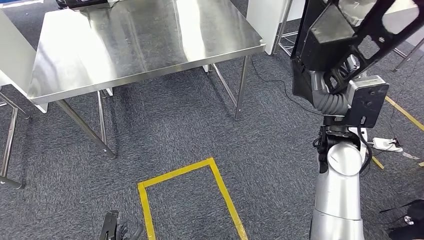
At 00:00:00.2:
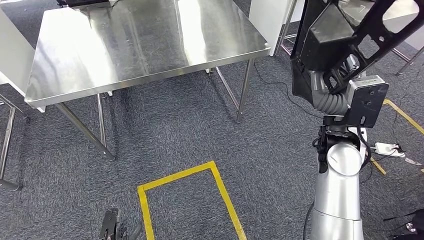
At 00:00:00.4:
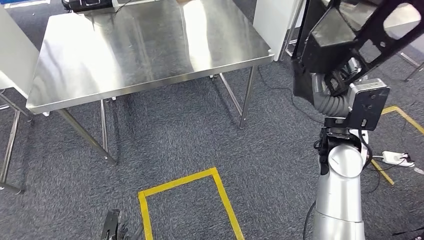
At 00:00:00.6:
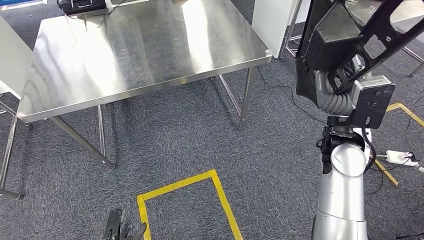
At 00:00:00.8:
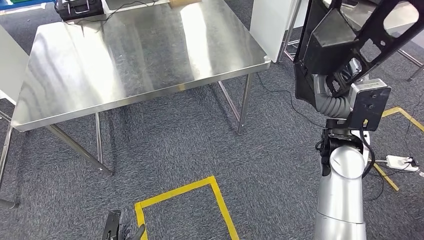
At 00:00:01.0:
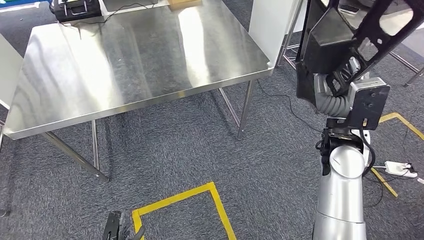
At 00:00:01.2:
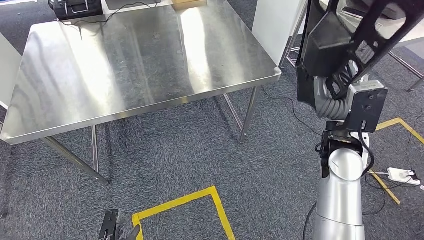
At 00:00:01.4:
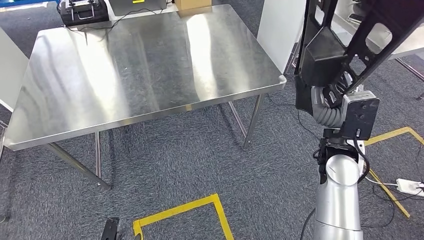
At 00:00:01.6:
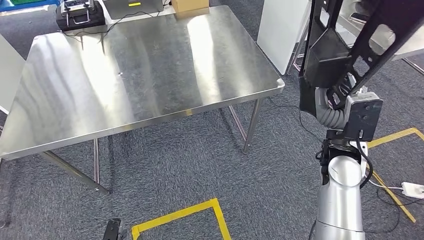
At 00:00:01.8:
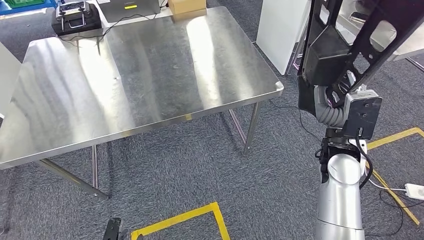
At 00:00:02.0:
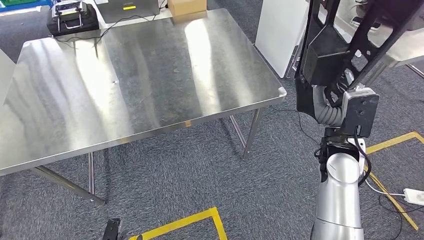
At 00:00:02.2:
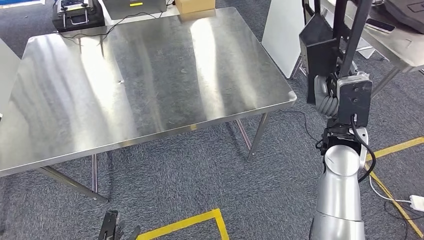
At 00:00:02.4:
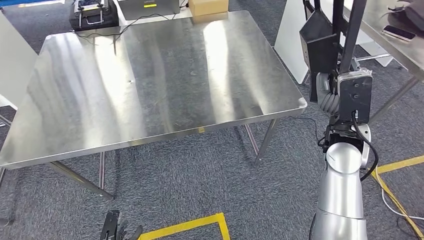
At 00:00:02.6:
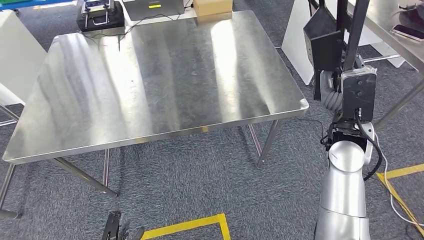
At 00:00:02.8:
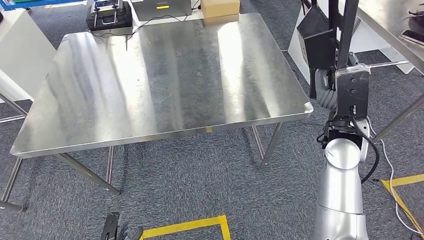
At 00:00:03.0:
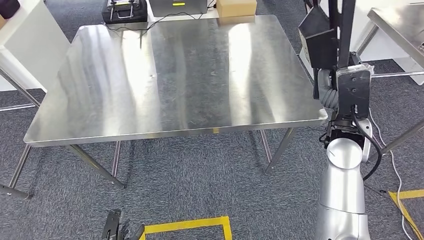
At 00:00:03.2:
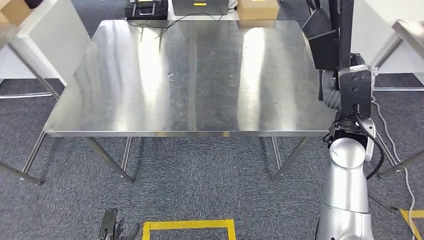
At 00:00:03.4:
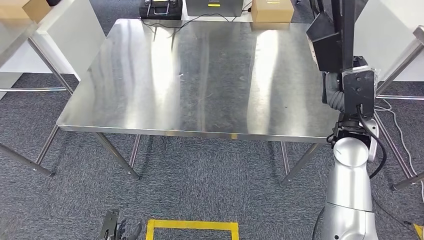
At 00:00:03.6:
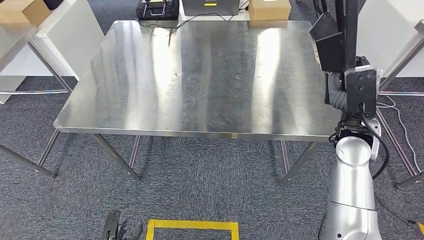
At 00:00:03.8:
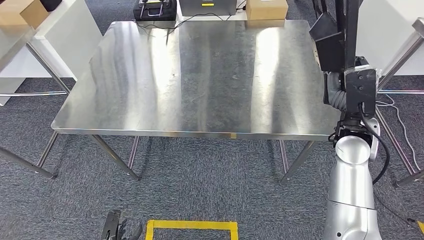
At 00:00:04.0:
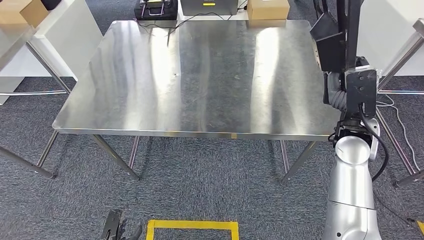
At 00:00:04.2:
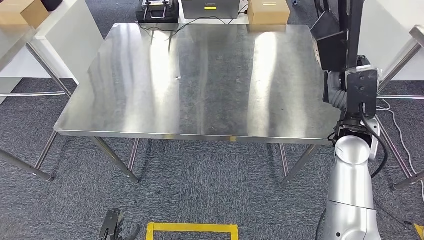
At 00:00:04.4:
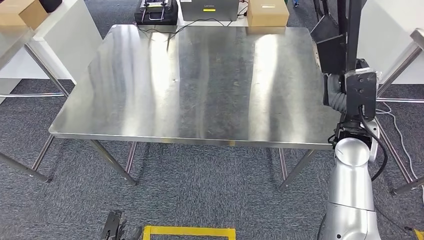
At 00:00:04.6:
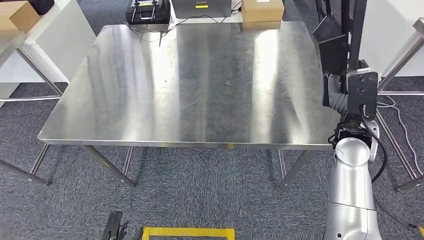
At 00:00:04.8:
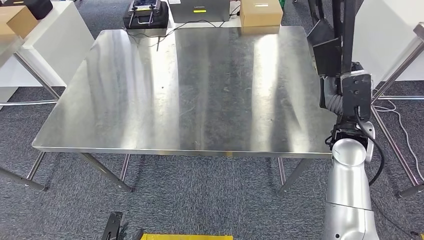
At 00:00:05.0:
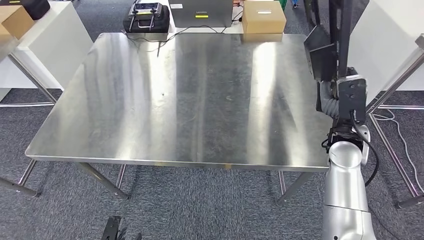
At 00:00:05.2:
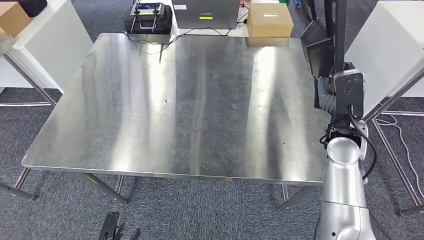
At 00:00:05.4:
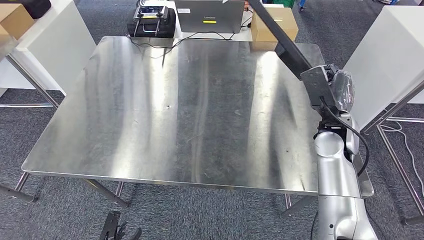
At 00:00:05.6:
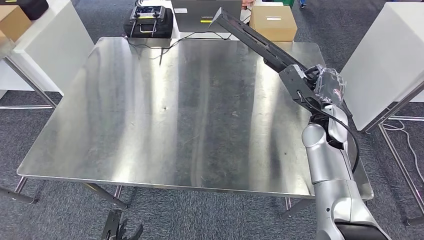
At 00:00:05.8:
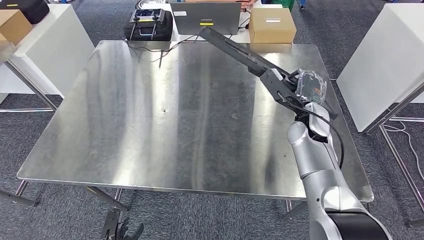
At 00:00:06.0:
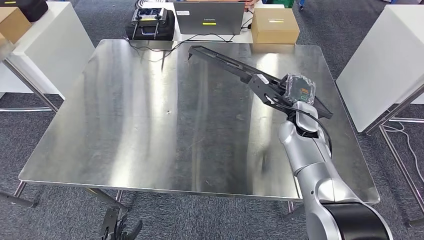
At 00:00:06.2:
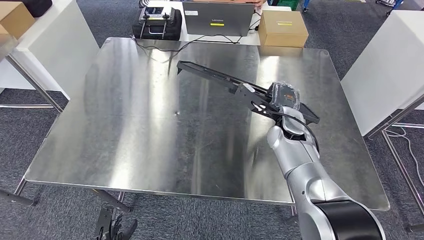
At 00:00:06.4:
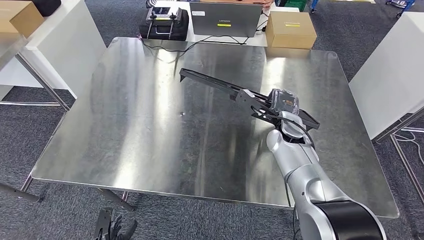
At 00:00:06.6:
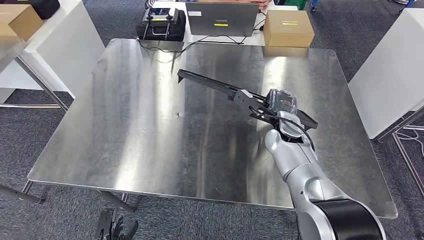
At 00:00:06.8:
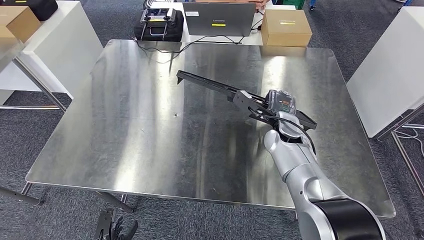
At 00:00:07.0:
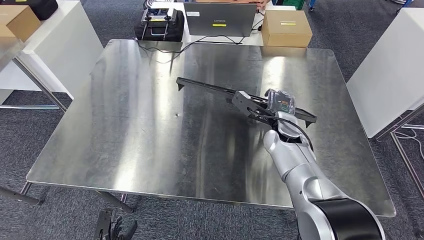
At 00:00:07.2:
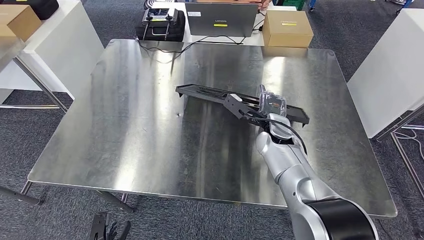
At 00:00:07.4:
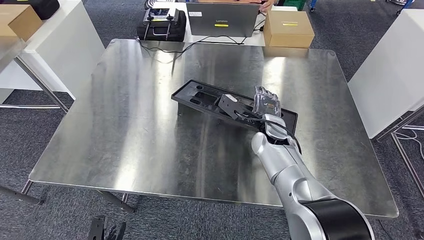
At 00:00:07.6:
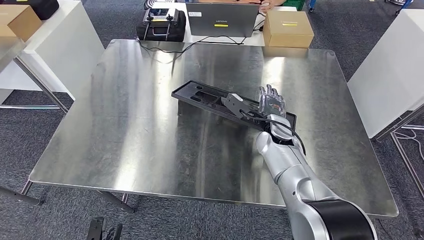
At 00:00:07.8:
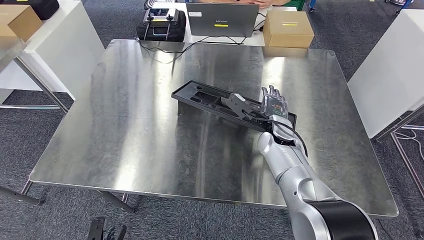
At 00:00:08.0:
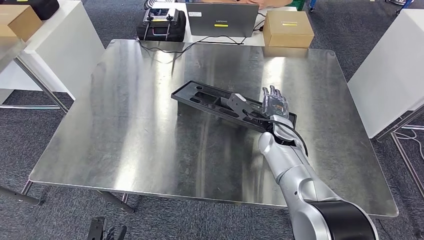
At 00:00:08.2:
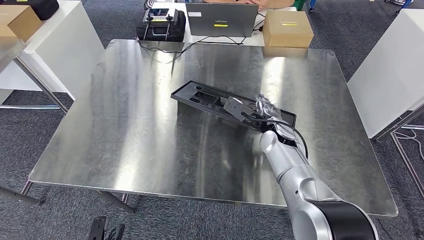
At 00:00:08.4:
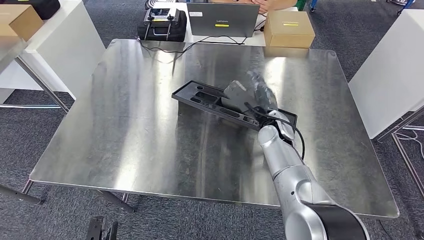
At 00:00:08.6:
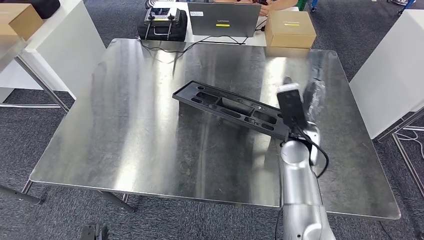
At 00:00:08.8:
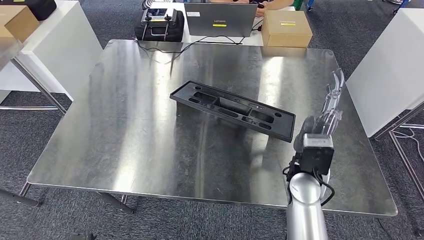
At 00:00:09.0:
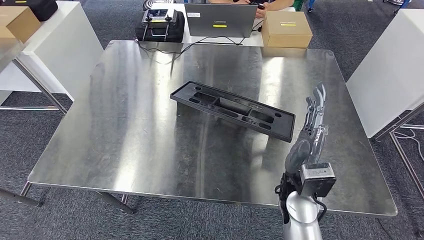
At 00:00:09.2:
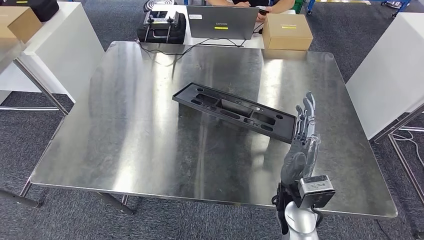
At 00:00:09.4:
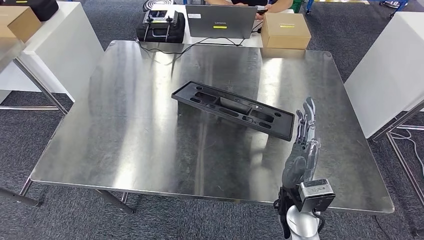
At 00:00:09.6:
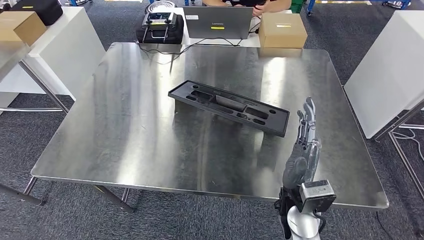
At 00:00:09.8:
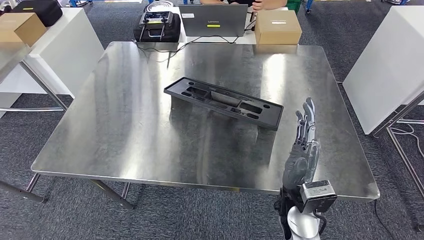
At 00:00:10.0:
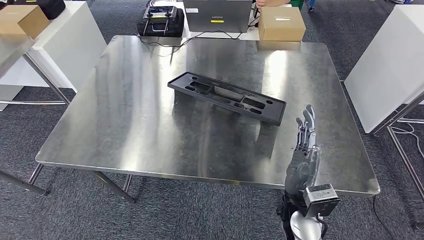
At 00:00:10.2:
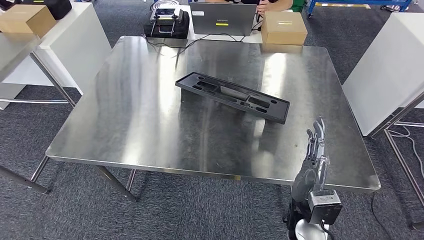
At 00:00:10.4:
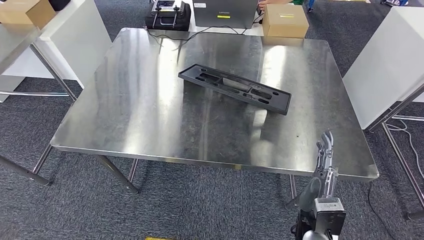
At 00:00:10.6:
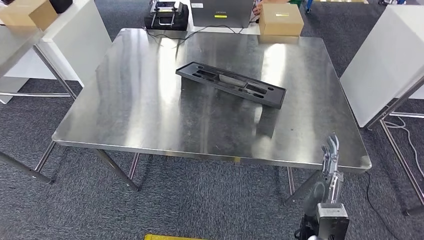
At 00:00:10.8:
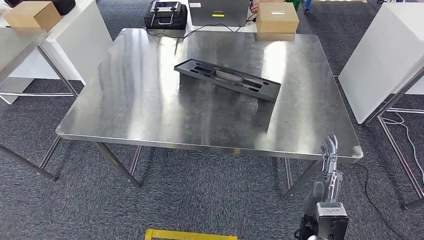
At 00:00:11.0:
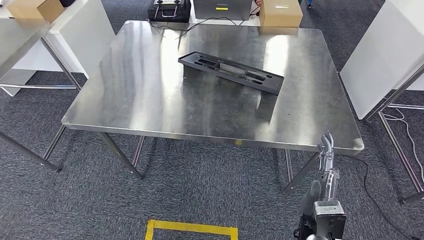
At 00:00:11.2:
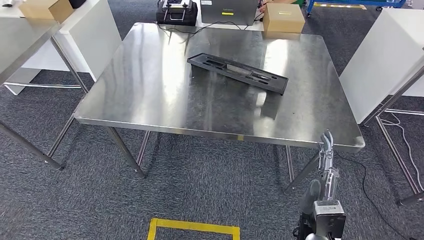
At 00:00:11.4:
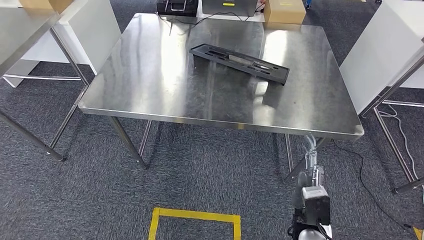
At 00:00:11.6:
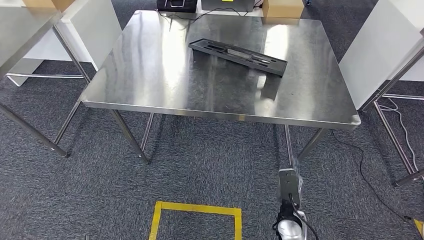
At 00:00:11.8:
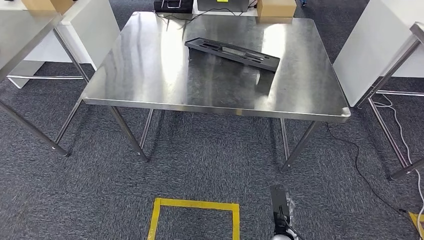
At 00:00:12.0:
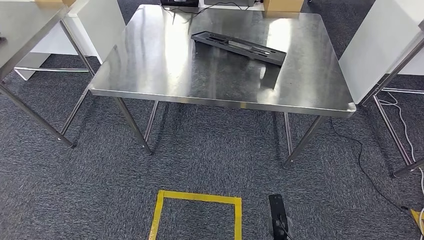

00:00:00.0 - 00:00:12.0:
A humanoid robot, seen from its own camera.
Step, 00:00:00.0 - 00:00:09.4: Insert the large material into the corresponding slot on the workbench.
00:00:07.6 - 00:00:09.0: The right hand shifts about 15 cm backward.

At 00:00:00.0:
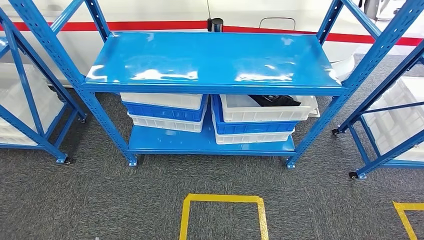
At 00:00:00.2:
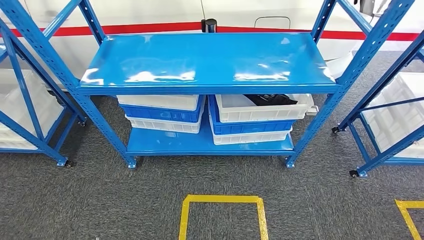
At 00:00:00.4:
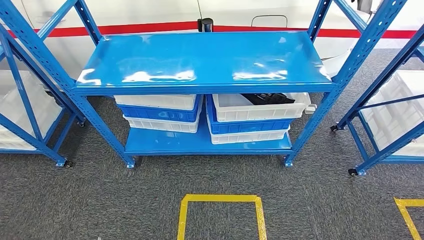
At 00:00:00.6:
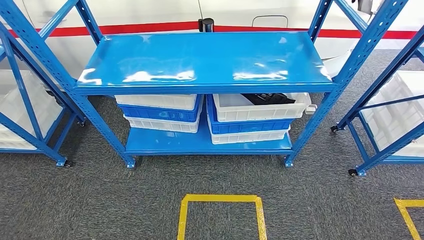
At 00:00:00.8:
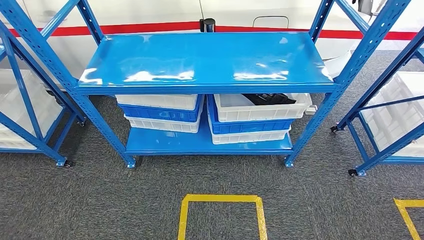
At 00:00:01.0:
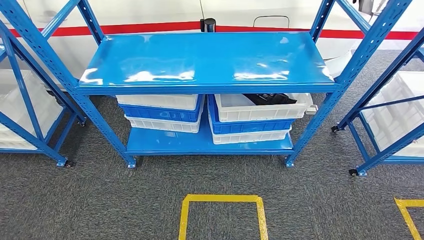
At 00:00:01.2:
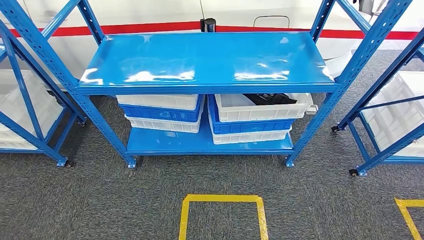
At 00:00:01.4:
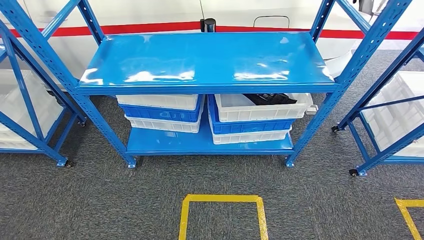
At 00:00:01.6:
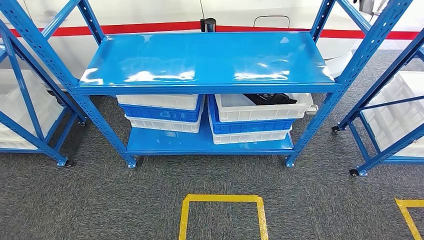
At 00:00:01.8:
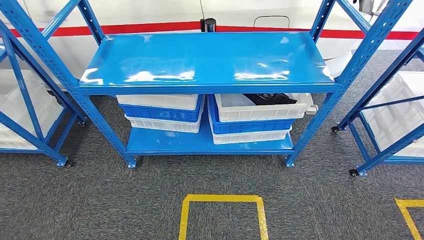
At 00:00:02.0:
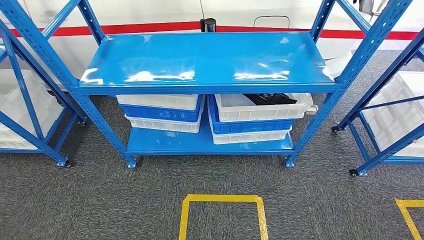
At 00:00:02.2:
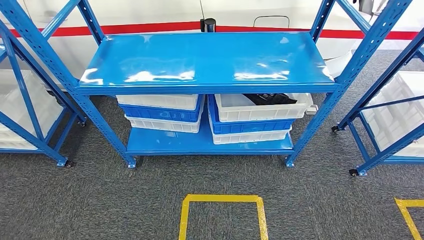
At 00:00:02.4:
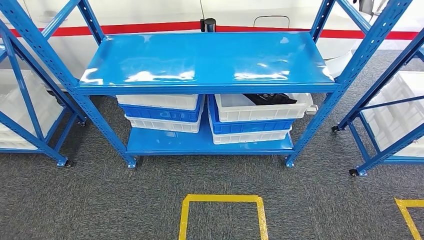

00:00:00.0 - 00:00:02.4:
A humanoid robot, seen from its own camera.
Step, 00:00:00.0 - 00:00:02.4: Return to the initial position at the shelf.
